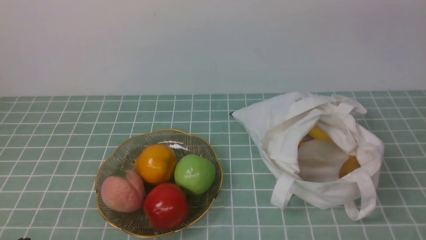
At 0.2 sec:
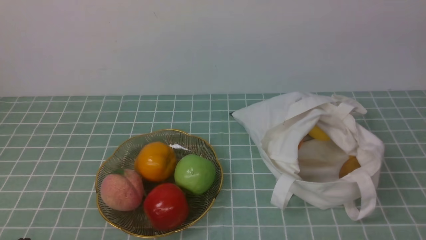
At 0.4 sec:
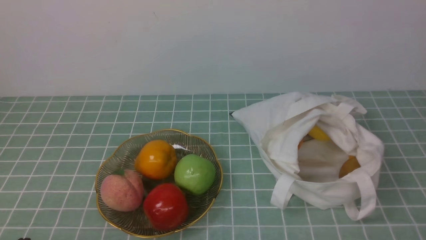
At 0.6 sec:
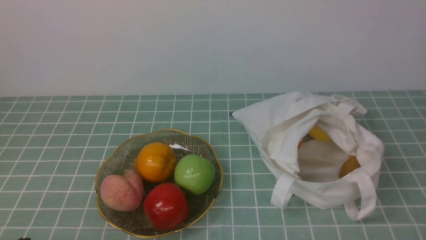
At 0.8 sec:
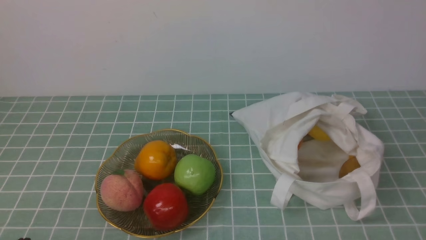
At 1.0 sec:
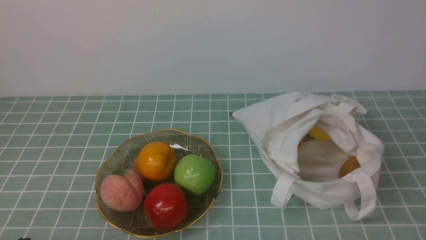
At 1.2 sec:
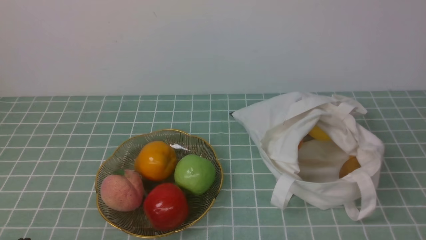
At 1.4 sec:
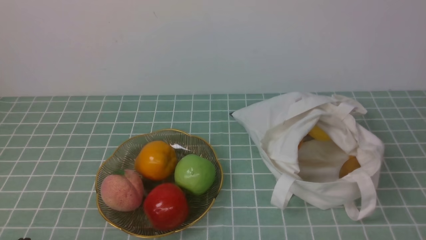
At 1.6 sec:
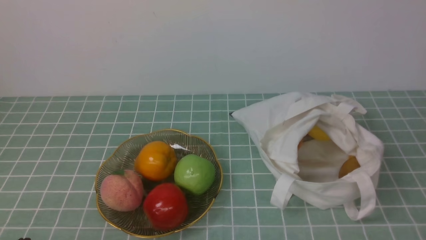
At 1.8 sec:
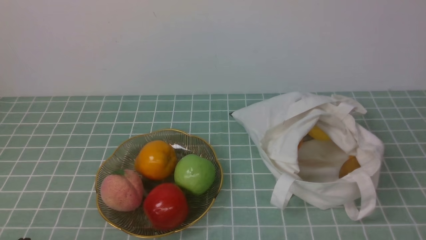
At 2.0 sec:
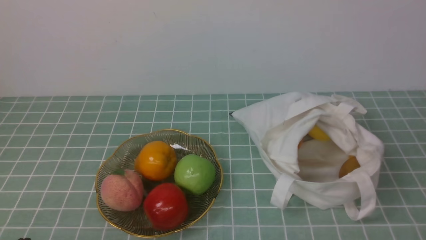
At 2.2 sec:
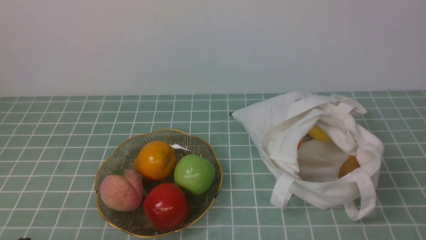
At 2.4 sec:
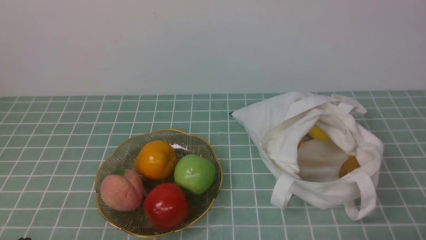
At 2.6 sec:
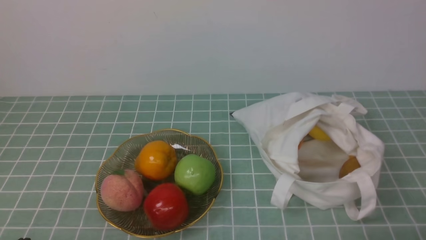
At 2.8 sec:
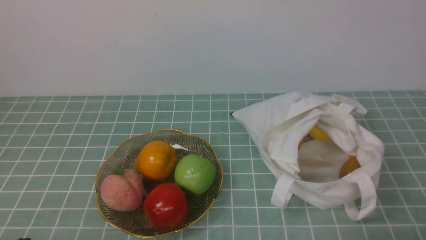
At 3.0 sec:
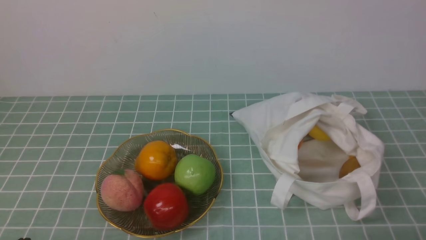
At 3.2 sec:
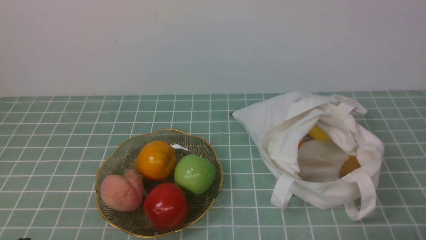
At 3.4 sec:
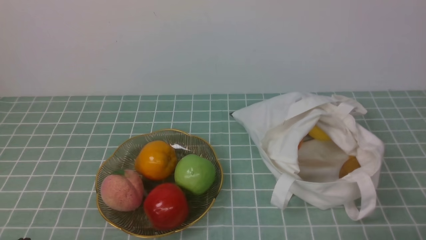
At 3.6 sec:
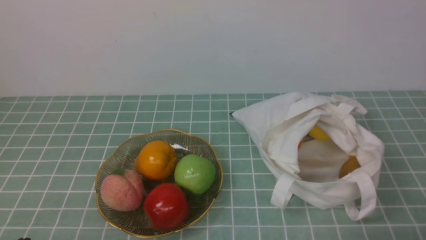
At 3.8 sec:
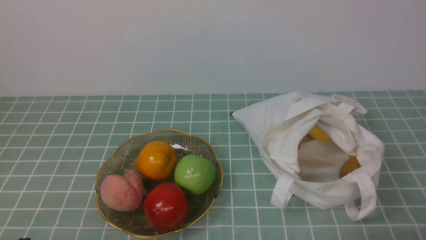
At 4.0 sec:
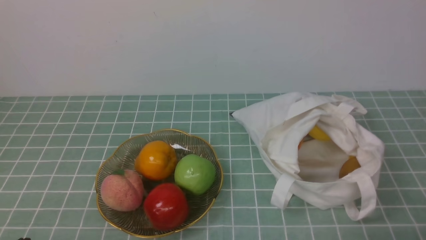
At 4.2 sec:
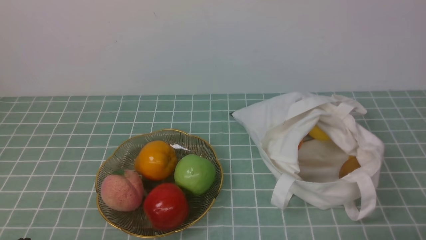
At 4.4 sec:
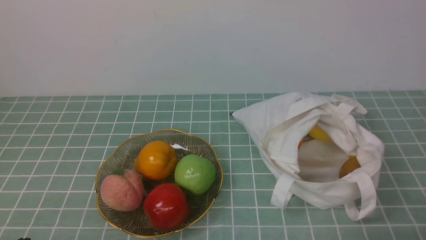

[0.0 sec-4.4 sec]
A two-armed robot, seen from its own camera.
3.0 sec to 4.4 sec: The two grippers keep their place.
